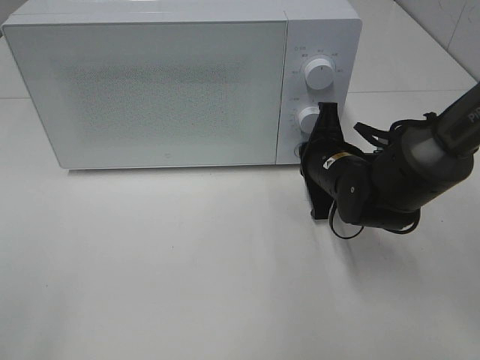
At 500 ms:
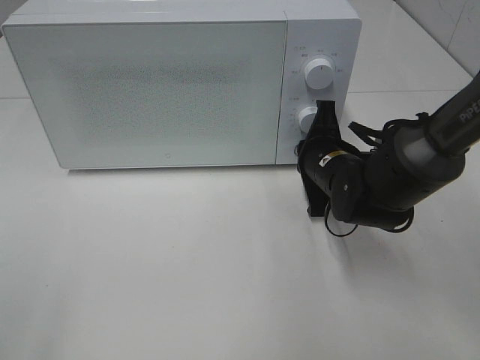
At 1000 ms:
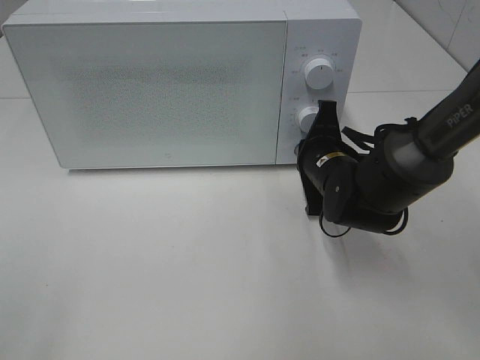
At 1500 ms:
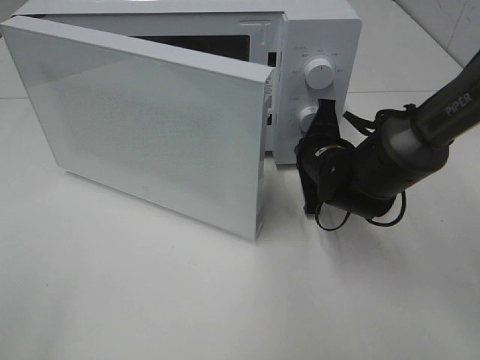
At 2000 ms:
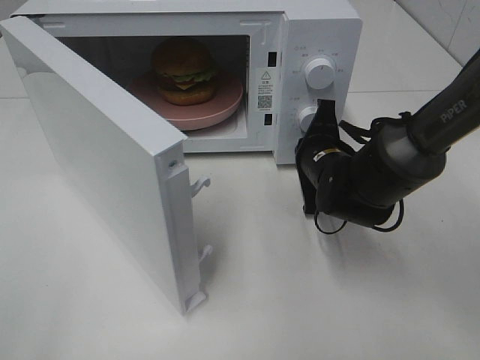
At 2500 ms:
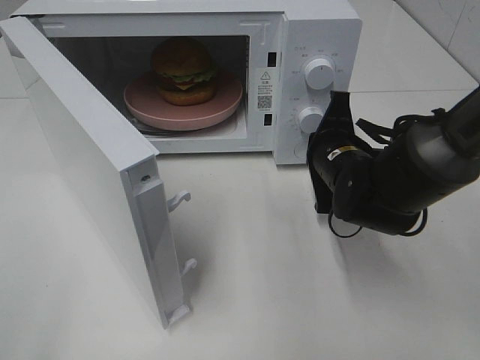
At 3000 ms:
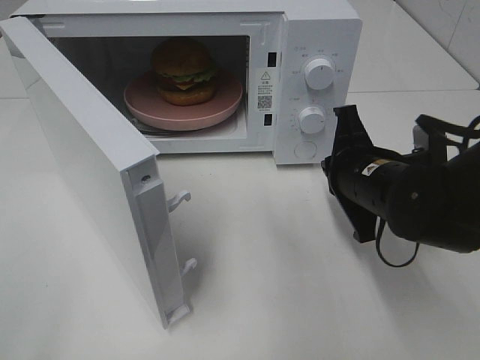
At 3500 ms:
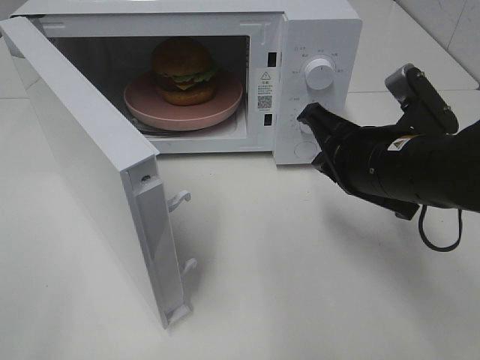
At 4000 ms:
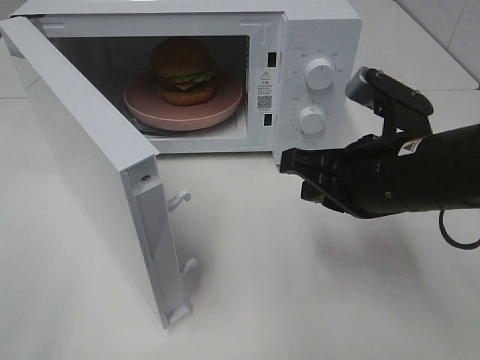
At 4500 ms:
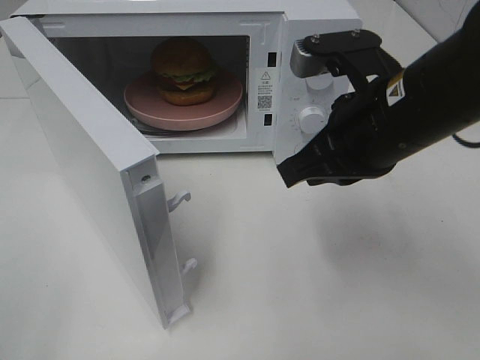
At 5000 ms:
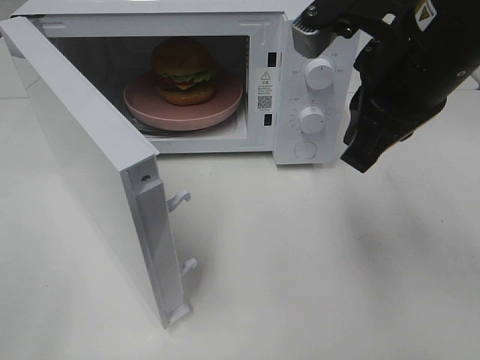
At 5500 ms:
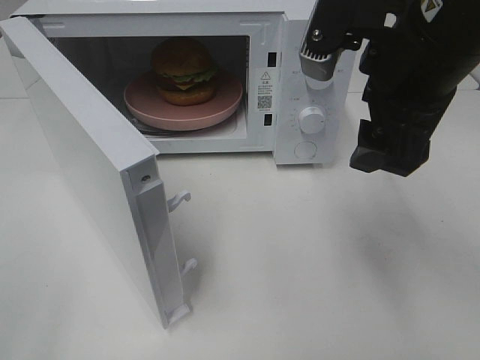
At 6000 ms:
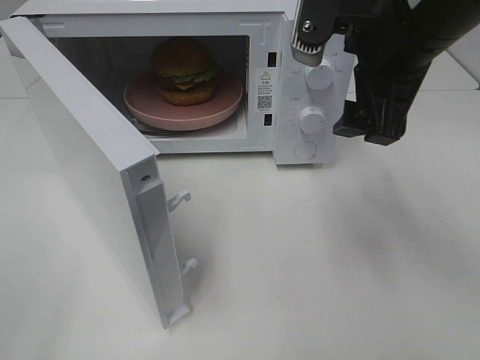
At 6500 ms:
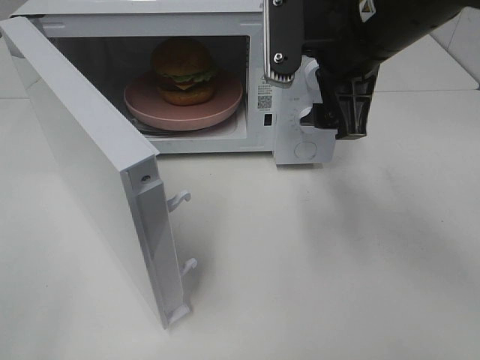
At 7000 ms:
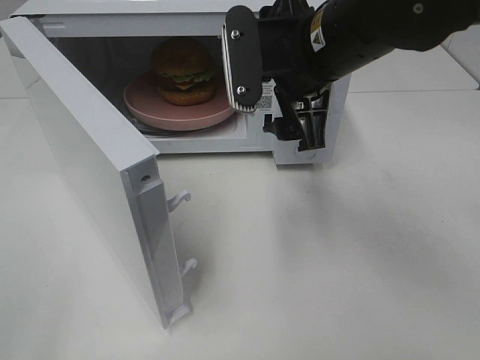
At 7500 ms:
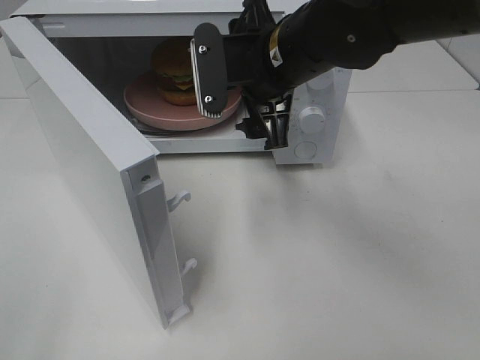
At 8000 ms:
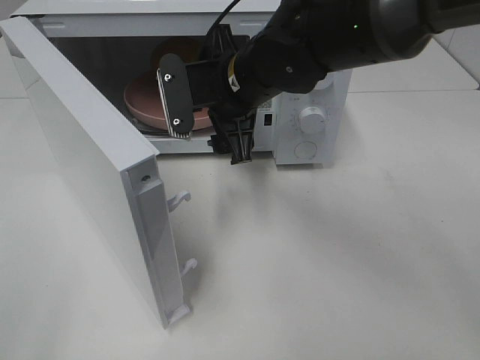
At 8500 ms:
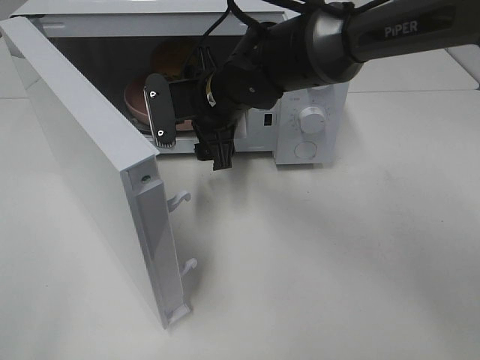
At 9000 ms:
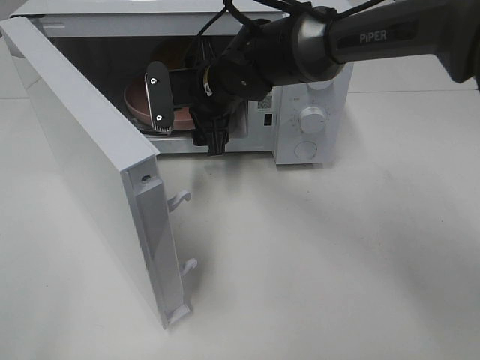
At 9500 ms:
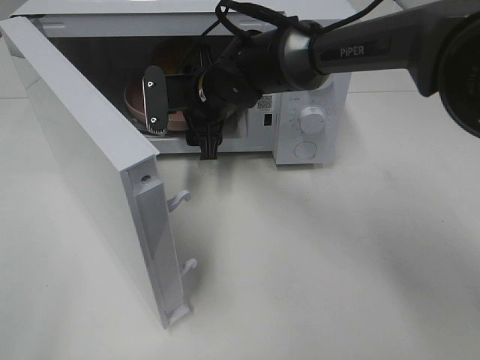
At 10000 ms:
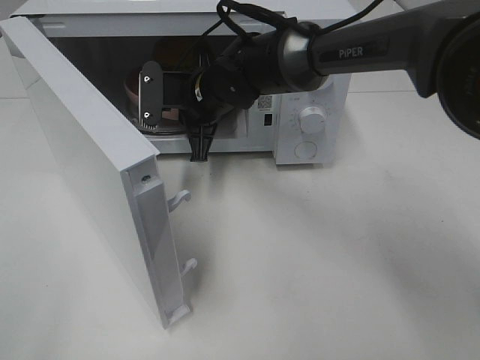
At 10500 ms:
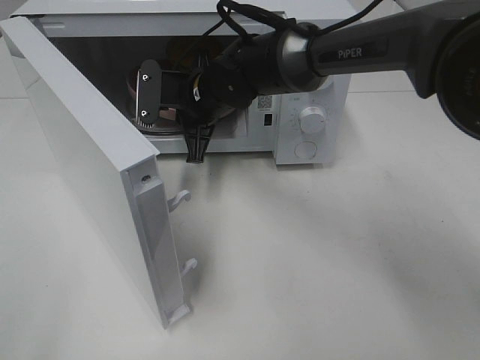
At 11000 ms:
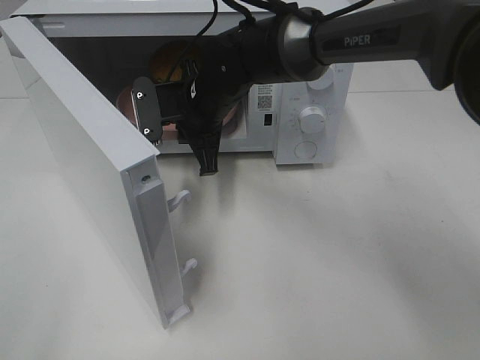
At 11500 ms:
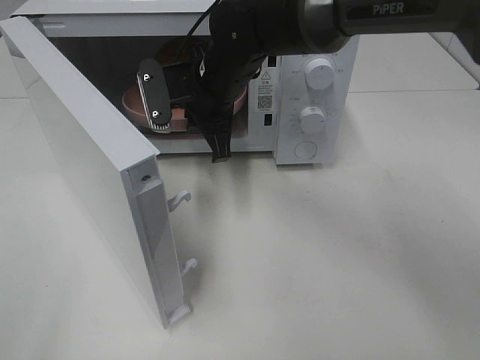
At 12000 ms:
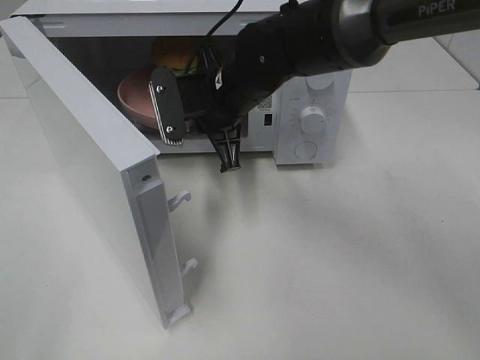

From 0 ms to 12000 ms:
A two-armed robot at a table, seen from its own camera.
Task of the whole recording: Heat the burger.
Step, from 0 ms to 2500 ms: Right hand: press the switch.
Step, from 3000 ms to 10000 ms: Right hand: grab the plate with the hamburger.
From 2000 ms to 4000 ms: The right gripper moves backward and upward, approximately 15 cm.
From 4000 ms to 6000 ms: The right gripper goes about 10 cm upward, and opens up.
From 6000 ms to 8000 ms: The right gripper moves to the left, downward and forward, some 20 cm.
From 8000 ms to 10000 ms: The right gripper travels forward and downward by some 10 cm, and closes.
From 10000 ms to 12000 ms: The right gripper ends up roughly 5 cm from where it was.

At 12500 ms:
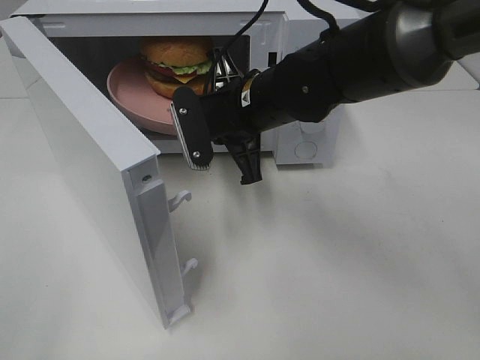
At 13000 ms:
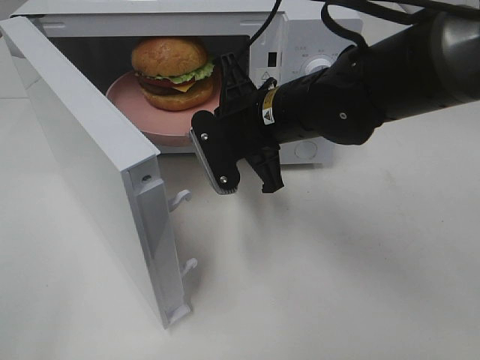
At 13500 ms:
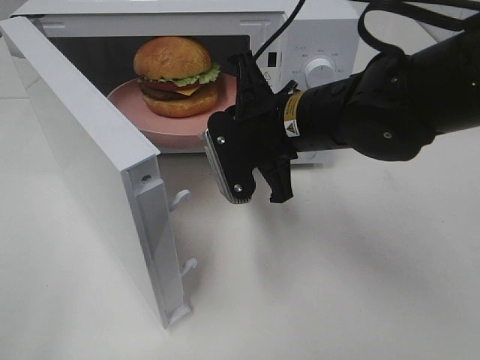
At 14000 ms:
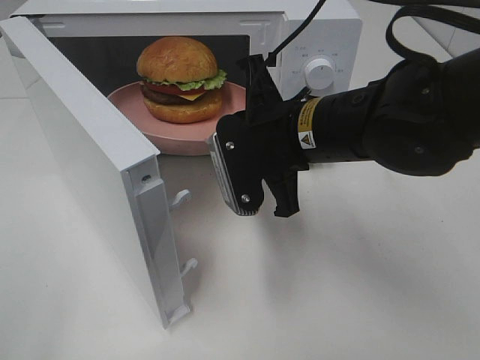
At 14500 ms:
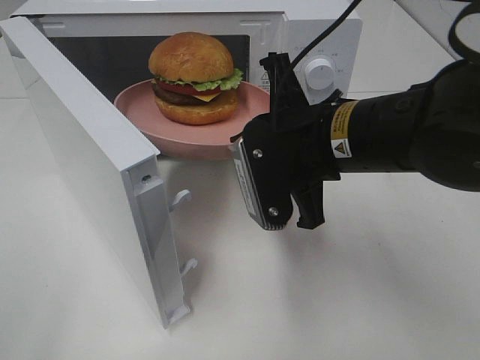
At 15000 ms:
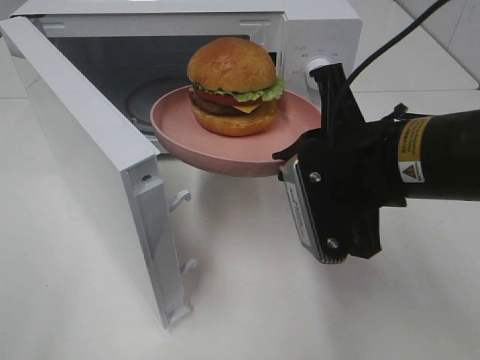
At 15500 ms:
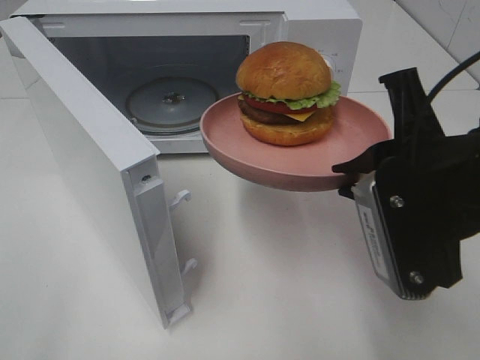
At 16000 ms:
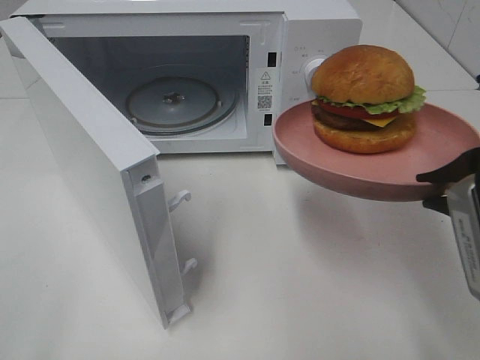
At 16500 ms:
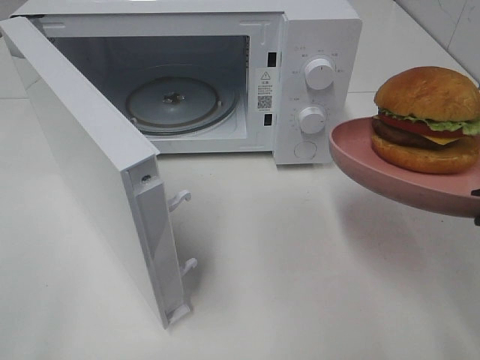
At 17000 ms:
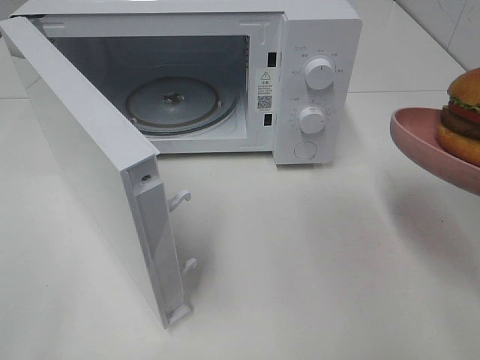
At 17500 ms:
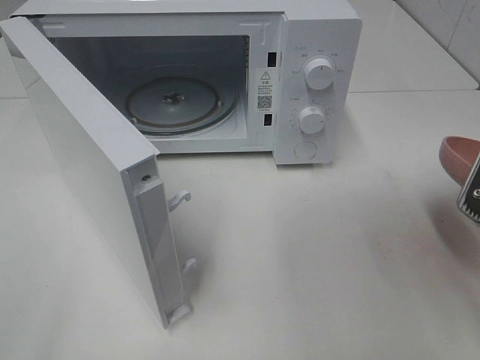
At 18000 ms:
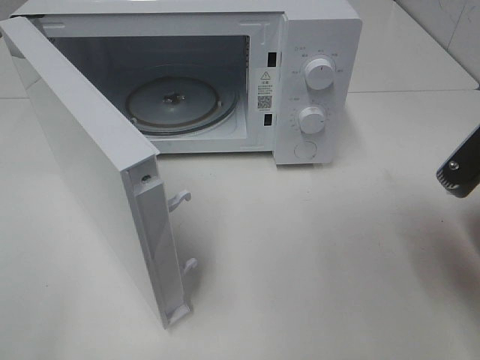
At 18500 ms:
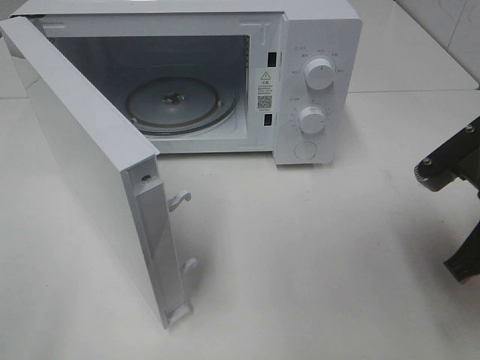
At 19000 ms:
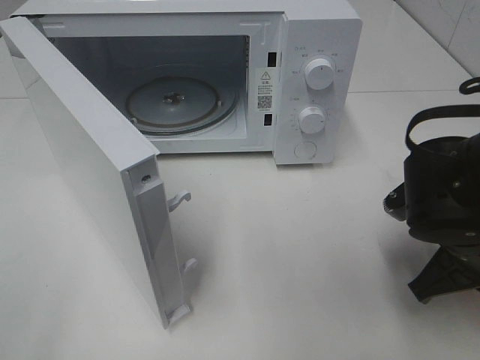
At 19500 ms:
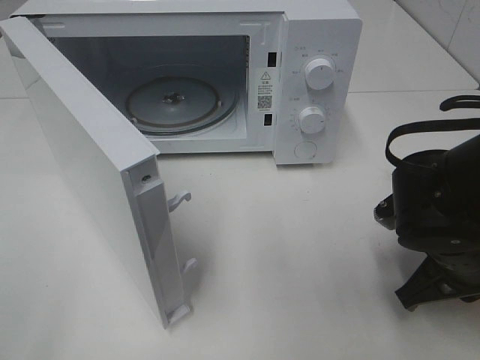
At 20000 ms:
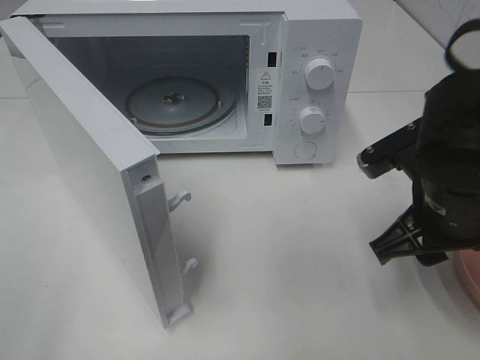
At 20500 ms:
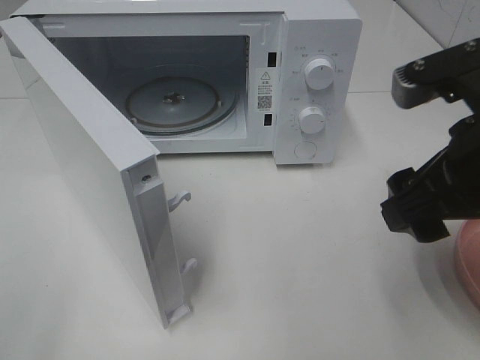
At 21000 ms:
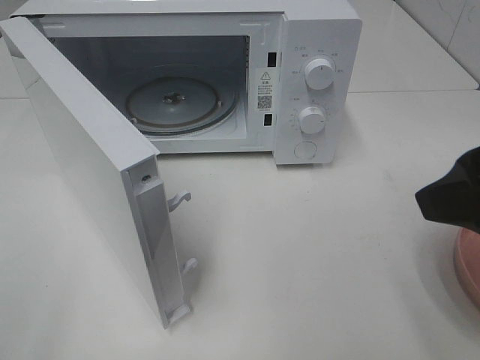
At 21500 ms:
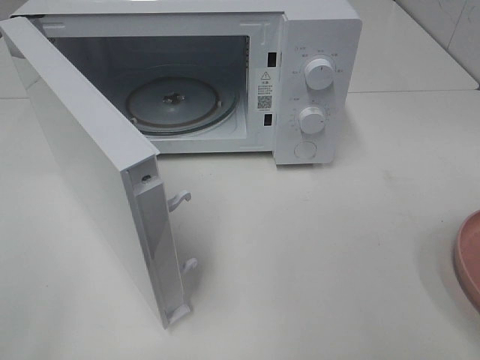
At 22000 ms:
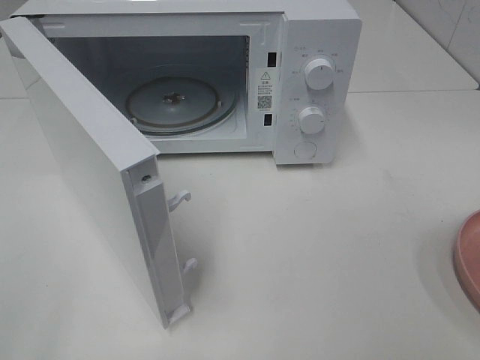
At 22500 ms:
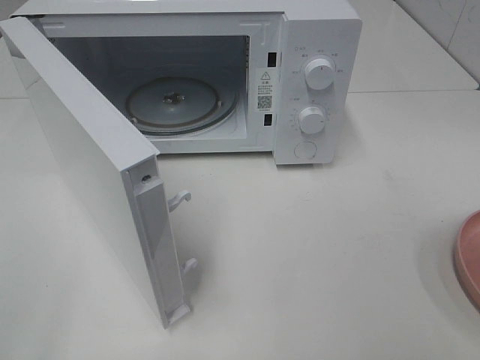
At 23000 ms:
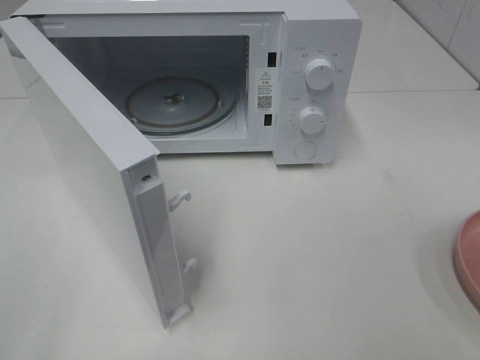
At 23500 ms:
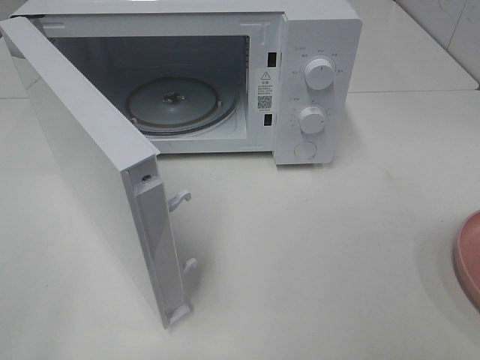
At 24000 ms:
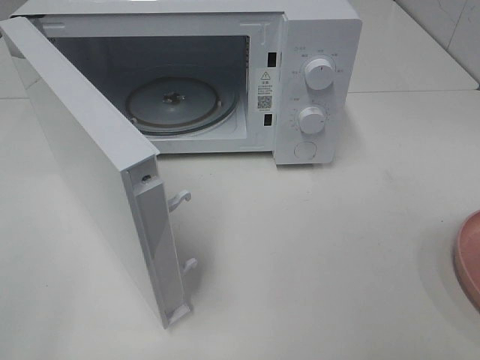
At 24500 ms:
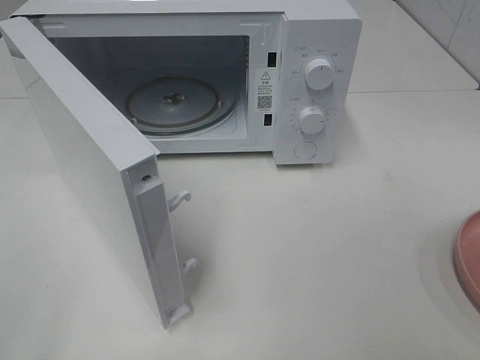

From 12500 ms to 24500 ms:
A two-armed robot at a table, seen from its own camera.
Task of the whole recording: Heat the burger.
Step, from 12500 ms to 19500 ms: Right hand: place the plate on the table.
From 12500 ms to 14500 ms: The right gripper heads backward and to the right, covering roughly 10 cm.
From 14500 ms to 16500 ms: The right gripper moves to the right and backward, some 20 cm.
From 16500 ms to 18500 ms: The right gripper travels downward and forward by about 10 cm.
From 18500 ms to 20500 ms: The right gripper goes roughly 10 cm upward, and opens.
From 20500 ms to 22500 ms: The right gripper shifts about 20 cm backward and to the right.
From 22500 ms to 24500 ms: The two grippers keep their place.

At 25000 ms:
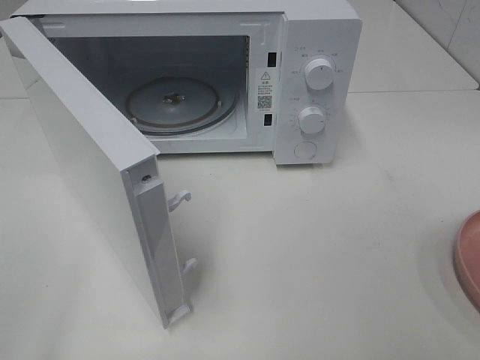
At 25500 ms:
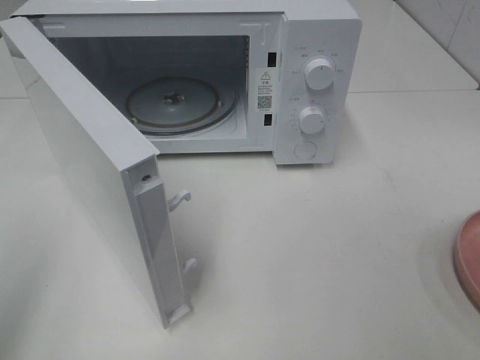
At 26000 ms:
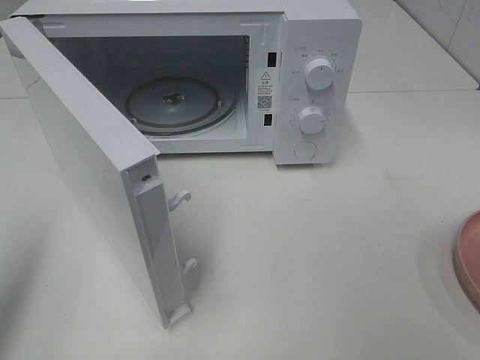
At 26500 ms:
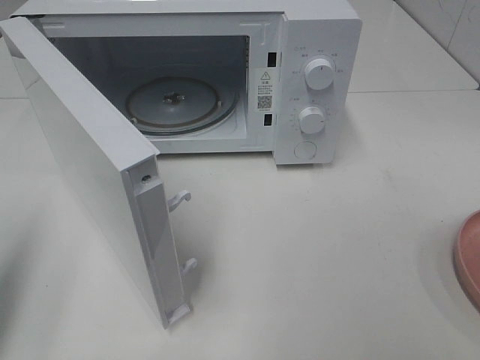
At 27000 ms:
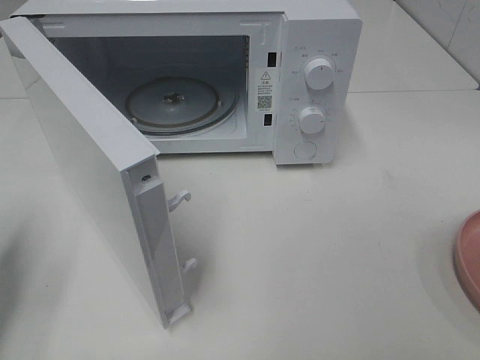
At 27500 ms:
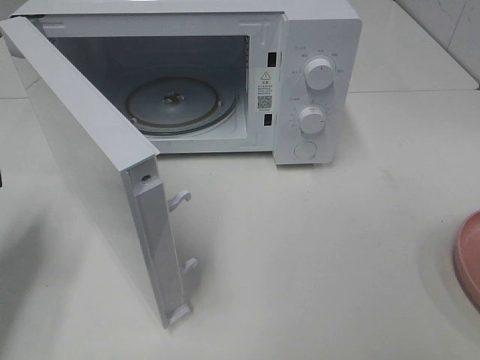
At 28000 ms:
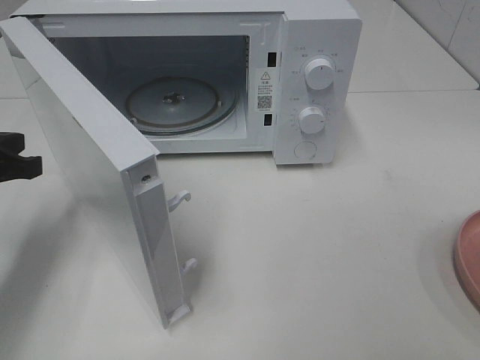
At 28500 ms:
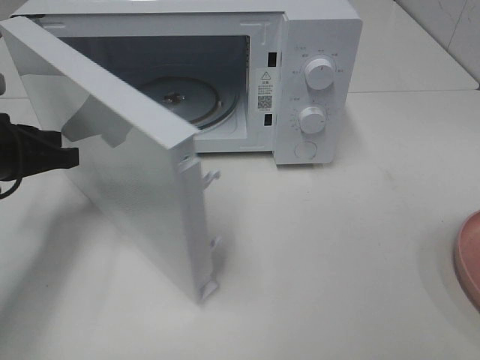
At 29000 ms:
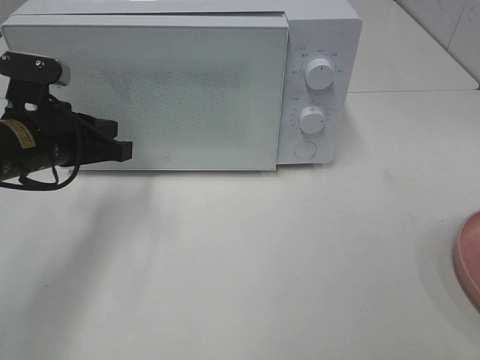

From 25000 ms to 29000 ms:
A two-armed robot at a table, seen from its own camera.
Task of the whole recording: Heat the burger.
From 25000 ms to 27000 ms: The left gripper is displaced forward and downward by roughly 20 cm, and closes up.
From 27000 ms to 29000 ms: The left gripper heads forward and to the right, covering about 15 cm.
